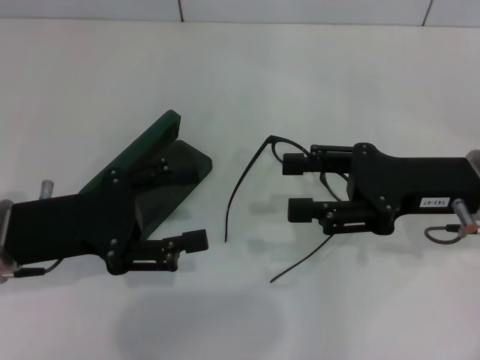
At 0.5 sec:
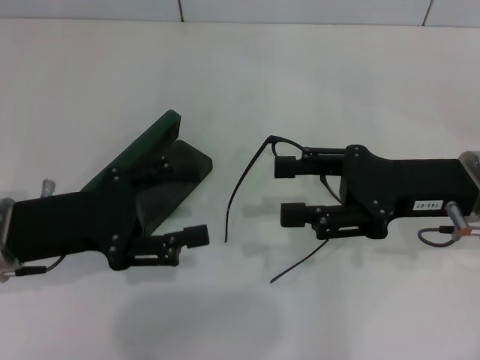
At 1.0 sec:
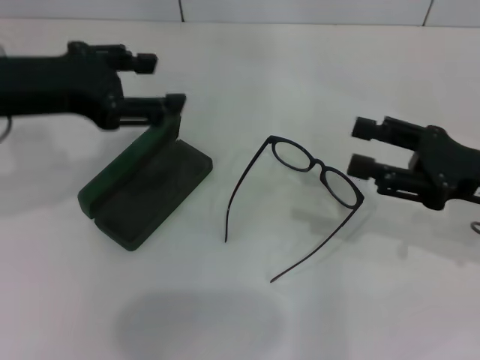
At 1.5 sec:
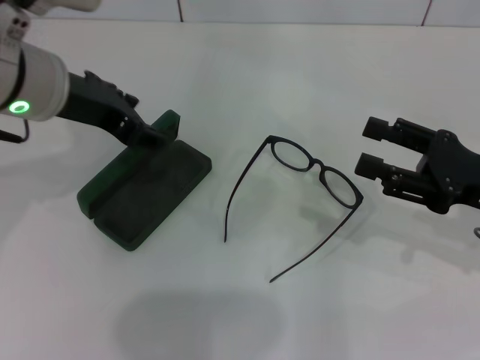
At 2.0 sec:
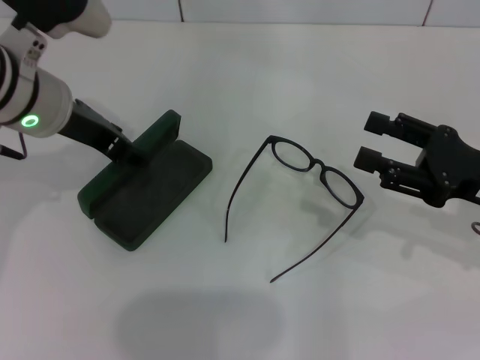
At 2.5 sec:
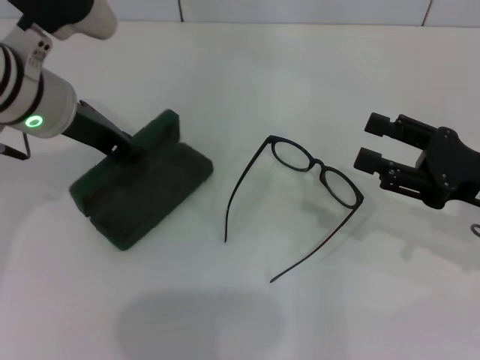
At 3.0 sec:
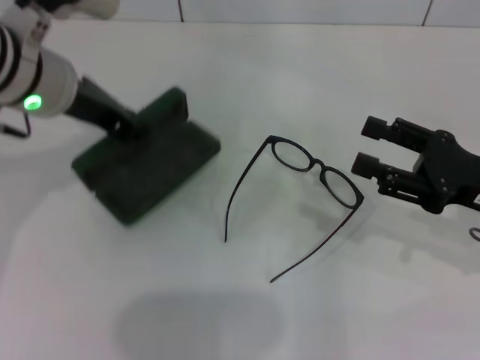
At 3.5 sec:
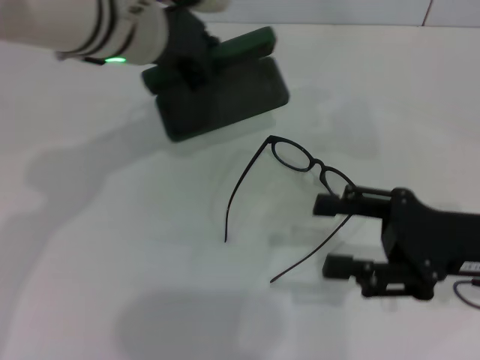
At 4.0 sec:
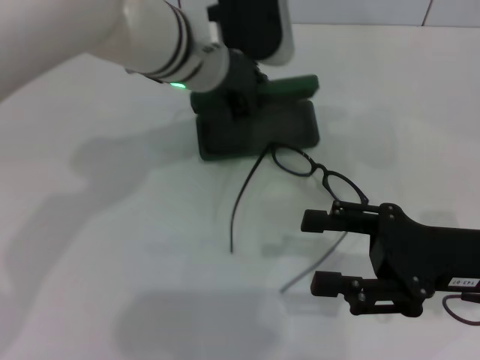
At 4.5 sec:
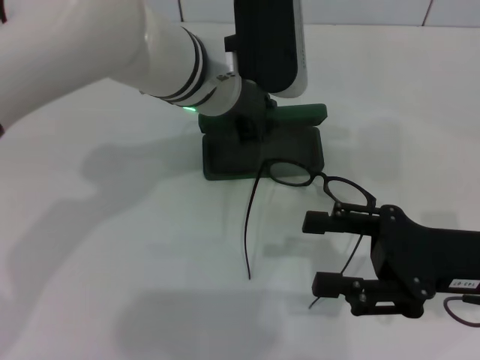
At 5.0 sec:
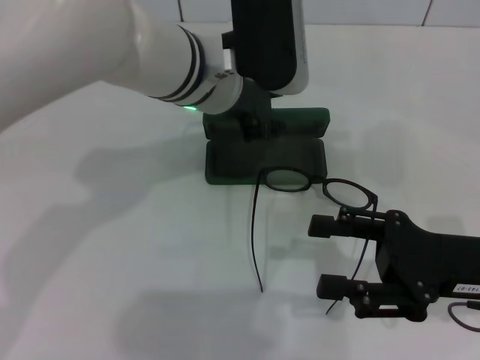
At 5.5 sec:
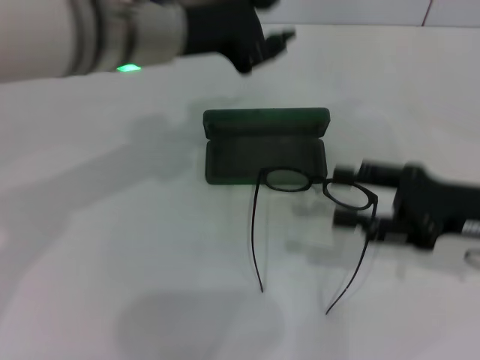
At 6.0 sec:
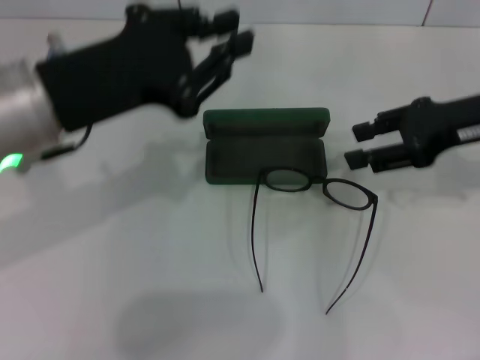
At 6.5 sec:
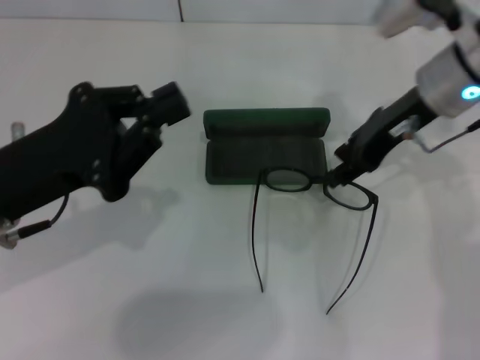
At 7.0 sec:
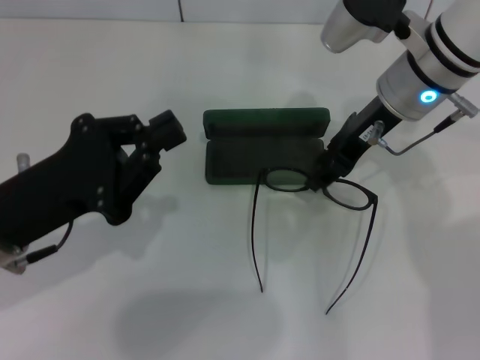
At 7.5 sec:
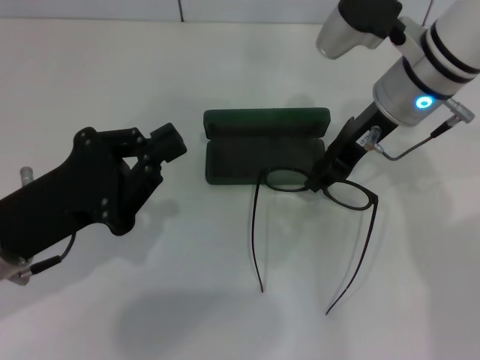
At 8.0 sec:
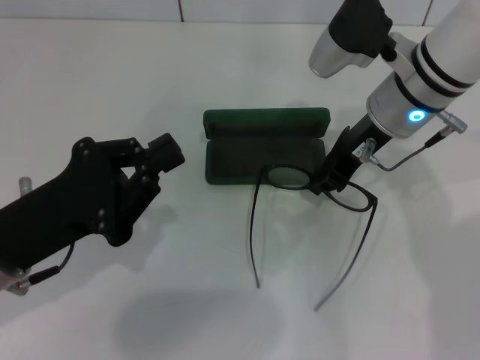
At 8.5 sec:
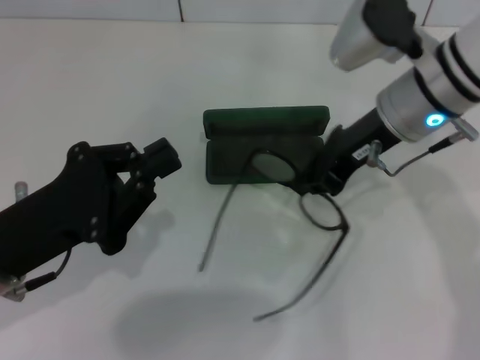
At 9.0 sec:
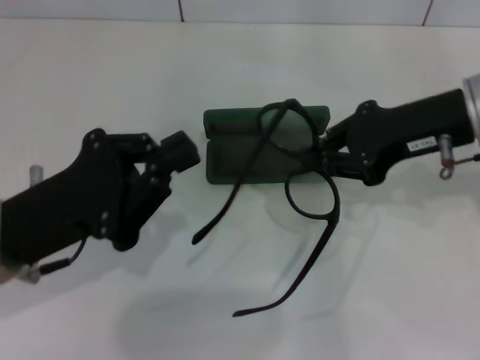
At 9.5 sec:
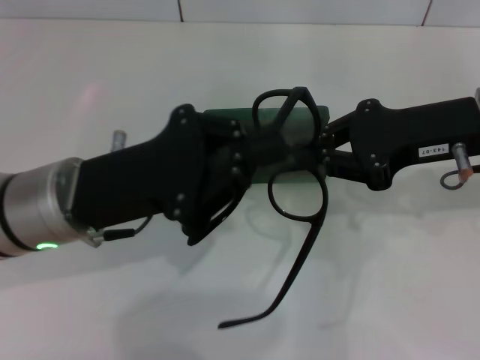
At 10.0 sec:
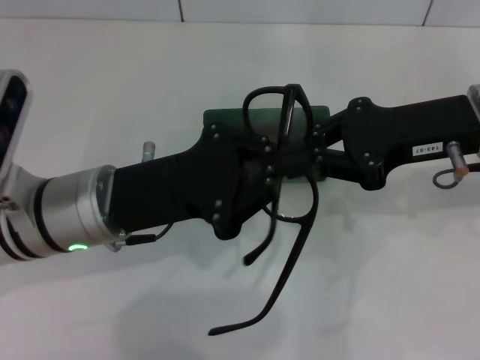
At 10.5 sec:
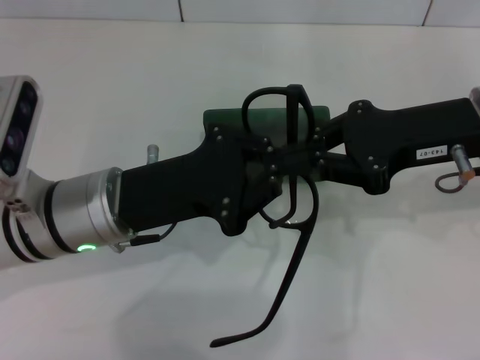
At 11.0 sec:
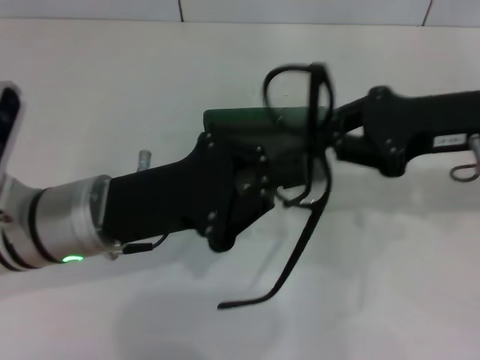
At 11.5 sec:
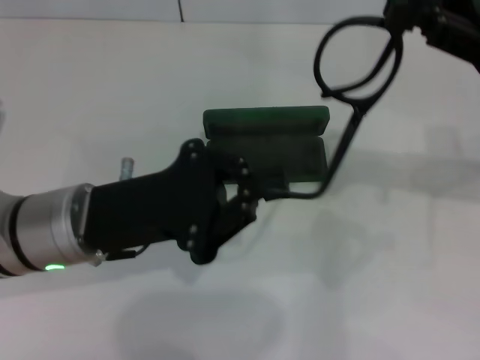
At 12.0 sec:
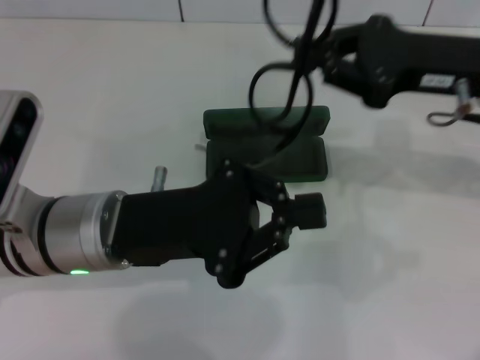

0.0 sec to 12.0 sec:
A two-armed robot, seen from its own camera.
Step, 0.0 sec to 2.5 sec: Grab the glasses case with your left hand.
Step, 3.0 sec to 5.0 sec: Place the glasses case in the center of the table with your left hand.
Step, 5.5 sec to 8.0 sec: Grab the eyeglass frame with your right hand.
0.0 sec to 2.0 sec: The right gripper shifts approximately 5 cm to the right. Meanwhile the left gripper shifts roughly 15 cm forward, upward and to the right.
2.0 sec to 4.0 sec: The left gripper goes roughly 15 cm to the right, and closes. The right gripper ends up some 5 cm from where it was.
4.0 sec to 6.0 sec: The right gripper heads forward and upward, covering roughly 15 cm, while the left gripper goes about 15 cm to the left and backward.
6.0 sec to 8.0 sec: The right gripper is displaced to the left by roughly 15 cm, and closes its fingers; the left gripper goes approximately 10 cm downward and backward, and closes up.
8.0 sec to 10.0 sec: The right gripper moves to the right and backward, some 10 cm, while the left gripper goes roughly 10 cm to the right.

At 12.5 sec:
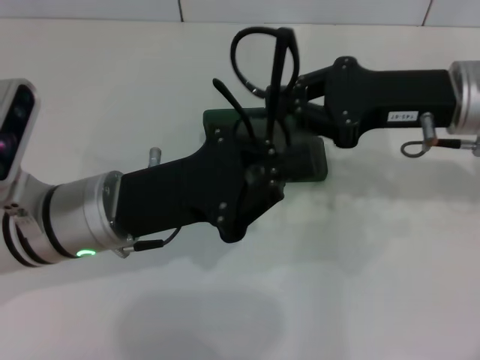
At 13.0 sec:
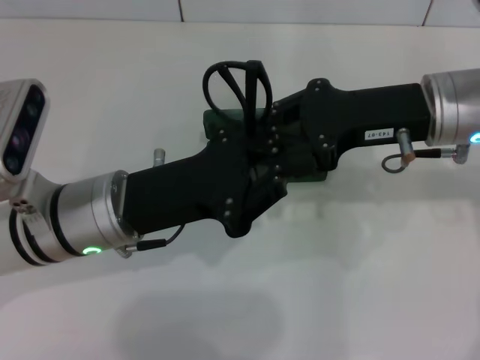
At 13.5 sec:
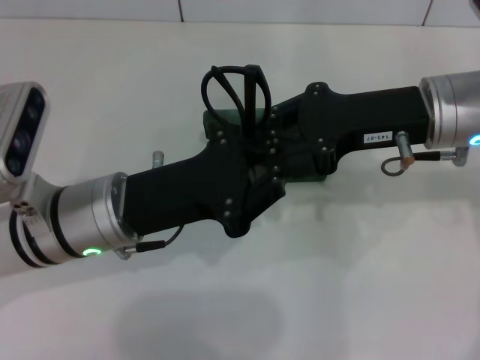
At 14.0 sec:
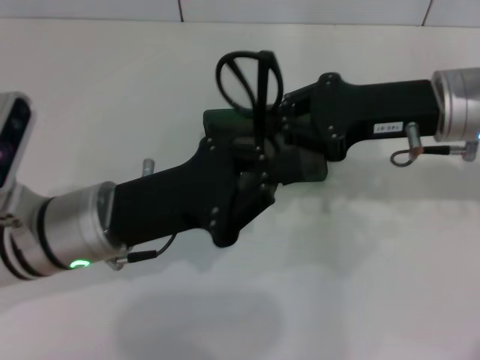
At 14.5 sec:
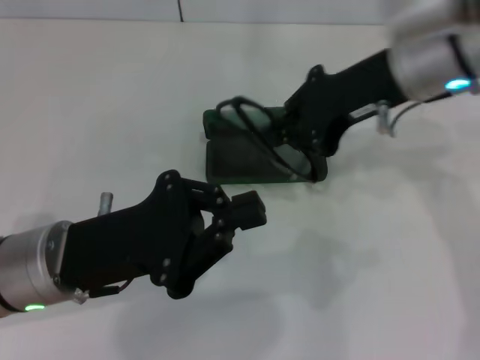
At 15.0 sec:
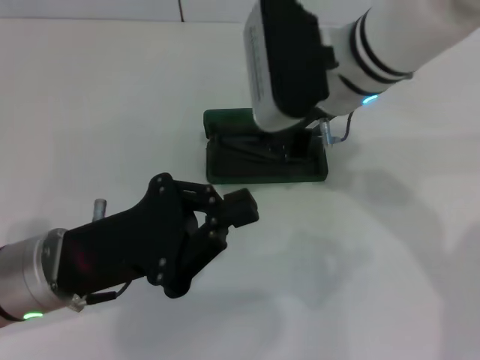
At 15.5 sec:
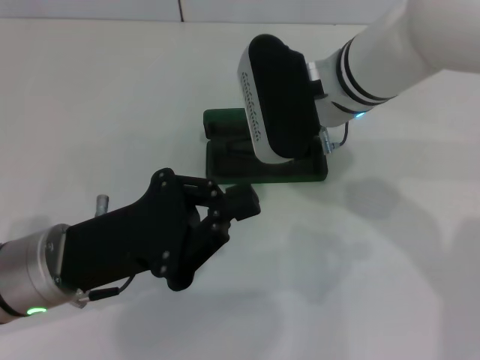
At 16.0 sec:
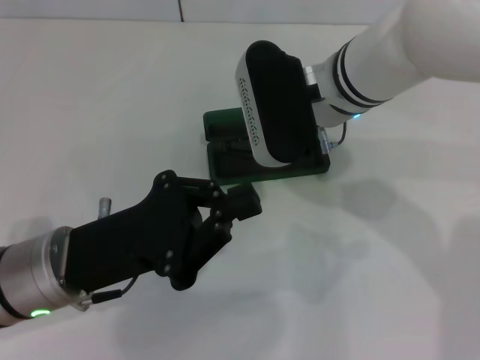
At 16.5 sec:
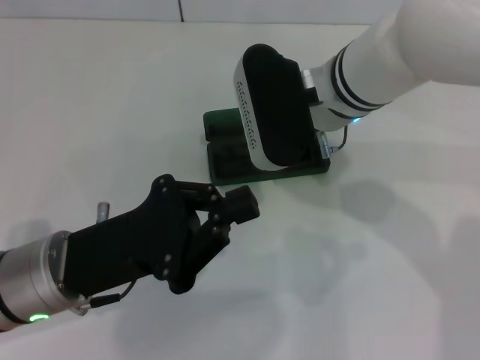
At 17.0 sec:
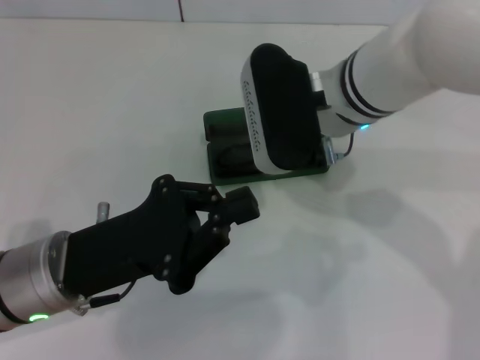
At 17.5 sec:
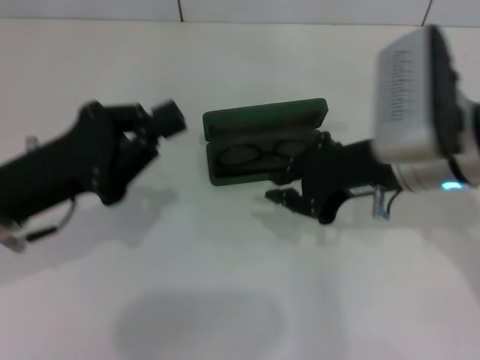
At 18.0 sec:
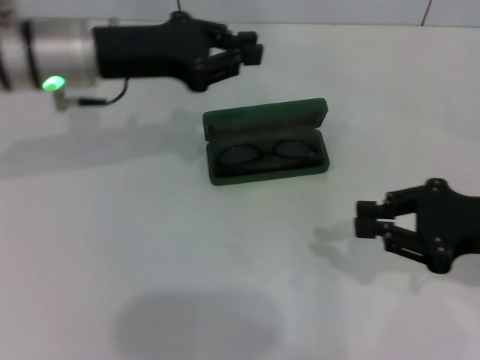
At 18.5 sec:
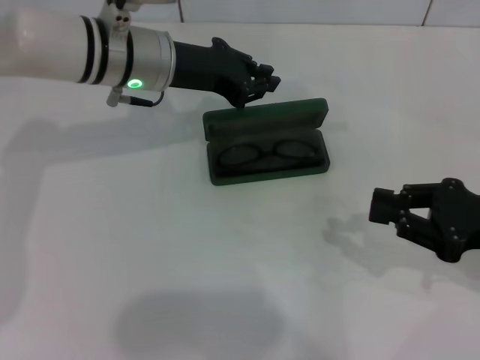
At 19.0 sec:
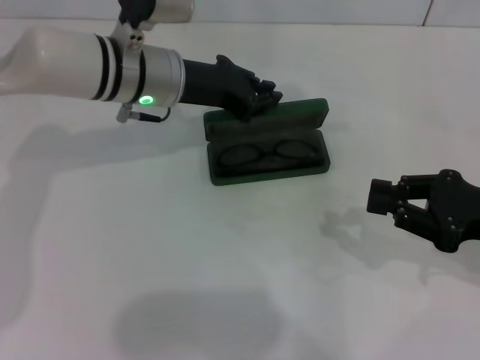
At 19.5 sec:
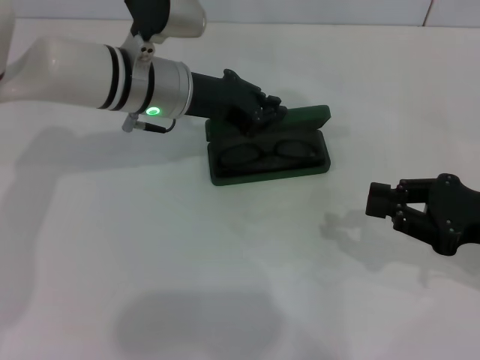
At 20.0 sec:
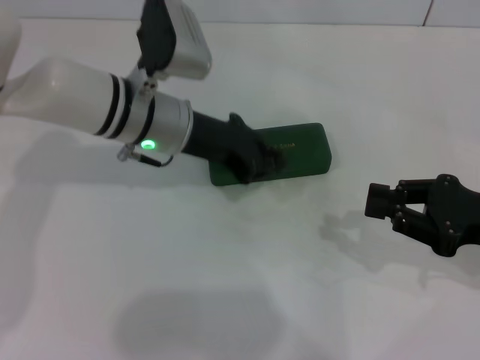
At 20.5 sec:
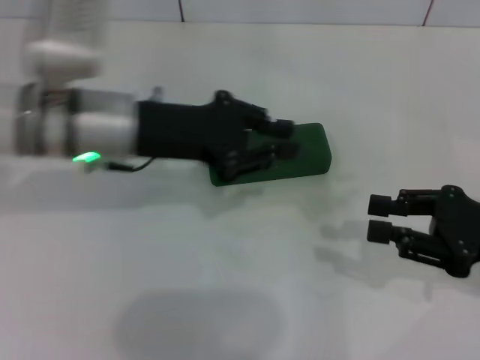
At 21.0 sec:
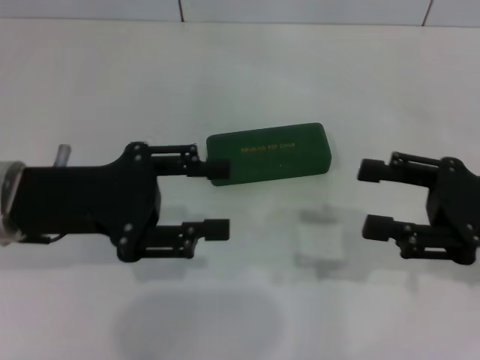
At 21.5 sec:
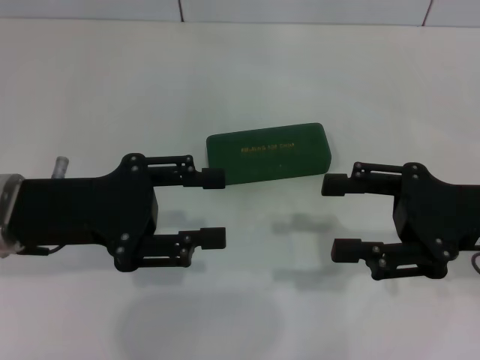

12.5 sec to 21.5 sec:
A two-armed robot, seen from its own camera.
Step, 13.5 sec to 16.5 sec: Put the glasses into the case with your right hand.
Step, 17.0 sec to 19.5 sec: Close the glasses case with your left hand.
12.5 sec to 14.5 sec: The right gripper moves to the left, some 5 cm. Meanwhile the left gripper shifts by roughly 5 cm.
14.5 sec to 17.0 sec: The right gripper travels to the left by roughly 5 cm.
17.0 sec to 19.5 sec: The right gripper shifts some 25 cm to the right and backward. The left gripper goes roughly 20 cm forward.
19.5 sec to 21.5 sec: The left gripper heads backward and to the left, covering roughly 20 cm, and opens, while the right gripper shifts by approximately 5 cm, and opens.

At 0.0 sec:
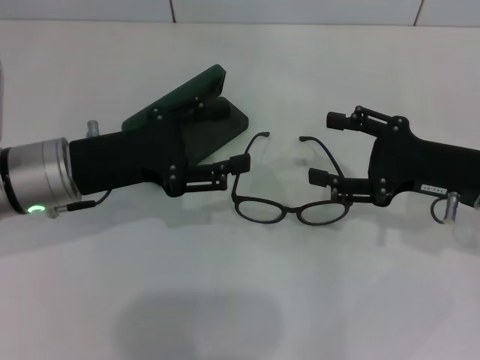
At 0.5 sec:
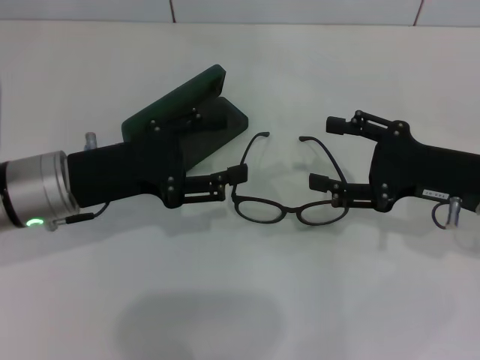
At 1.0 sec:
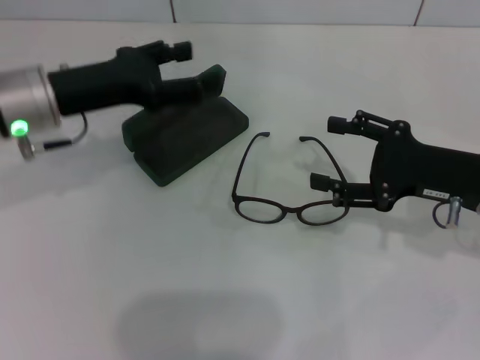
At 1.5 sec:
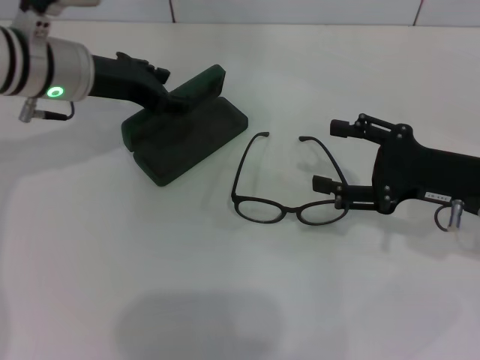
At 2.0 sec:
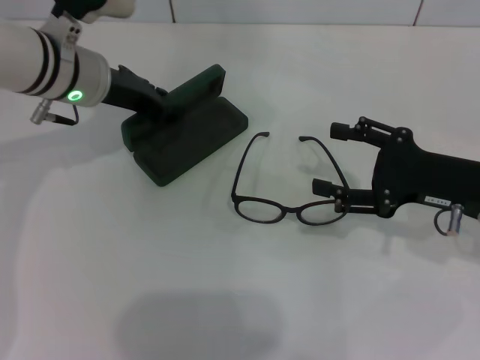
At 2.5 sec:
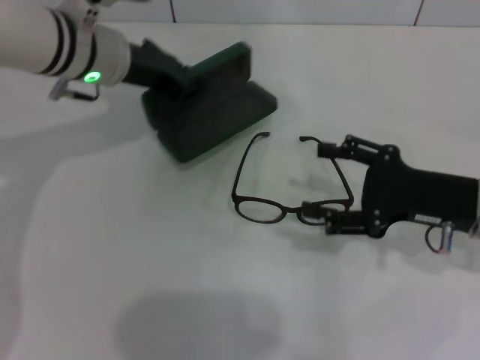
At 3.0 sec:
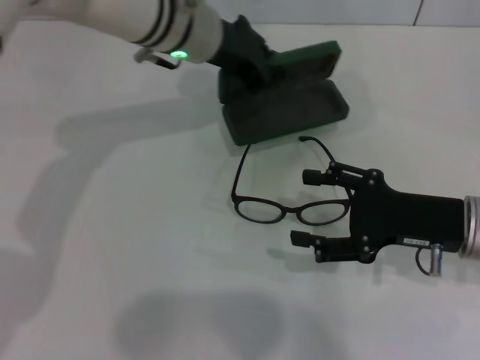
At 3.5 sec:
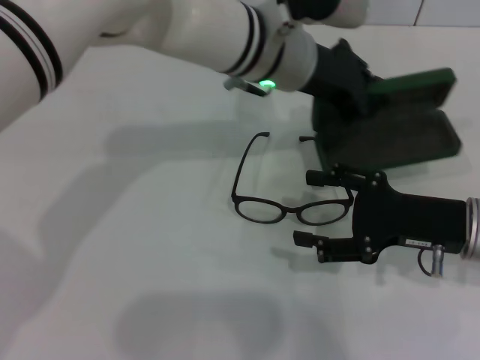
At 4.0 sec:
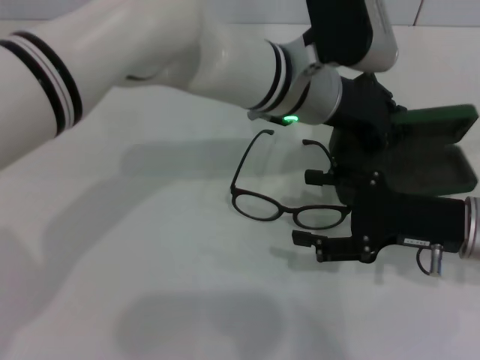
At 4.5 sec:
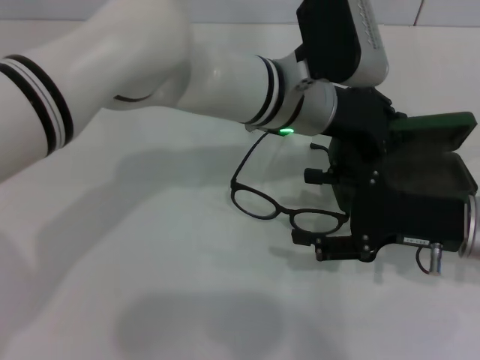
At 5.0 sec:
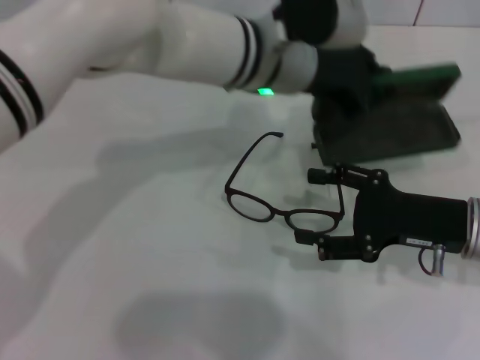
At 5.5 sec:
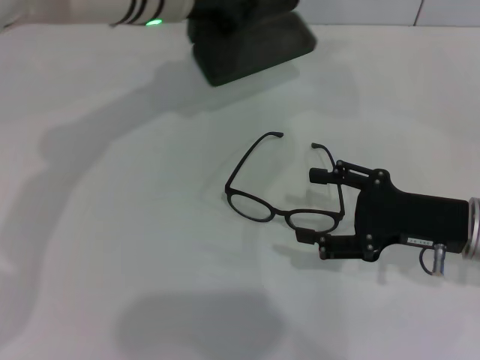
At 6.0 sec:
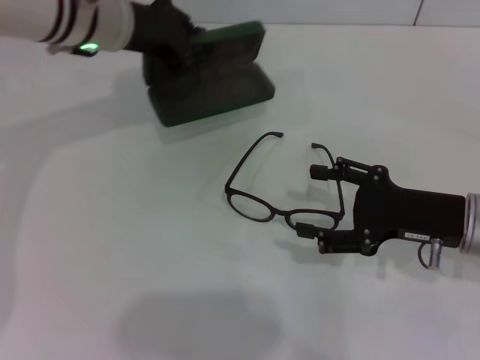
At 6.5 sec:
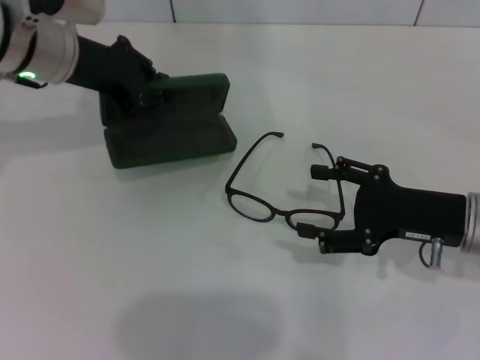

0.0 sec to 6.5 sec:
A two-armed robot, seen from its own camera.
Step, 0.0 sec to 2.0 sec: Grab the glasses case with your left hand.
0.0 sec to 2.0 sec: The left gripper travels forward by some 10 cm, and closes.
2.0 sec to 4.5 sec: The left gripper goes approximately 20 cm to the right, and closes up.
4.5 sec to 6.5 sec: The left gripper shifts roughly 25 cm to the left.
